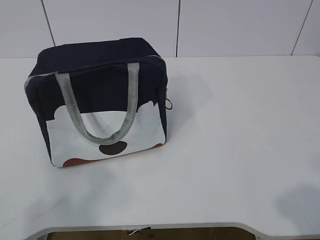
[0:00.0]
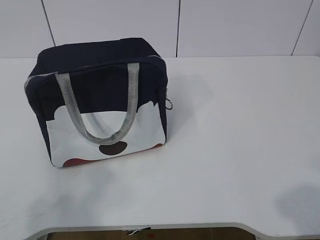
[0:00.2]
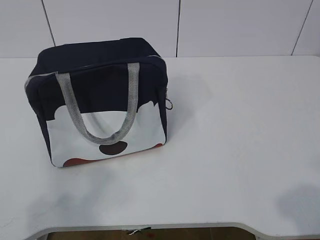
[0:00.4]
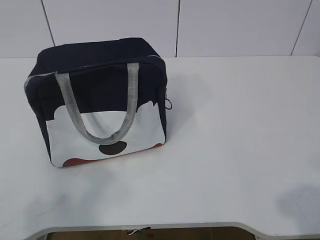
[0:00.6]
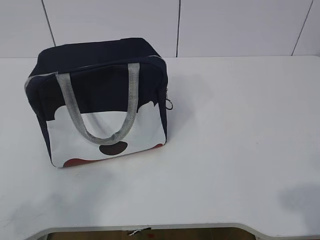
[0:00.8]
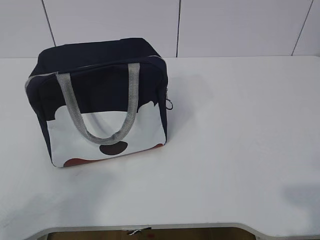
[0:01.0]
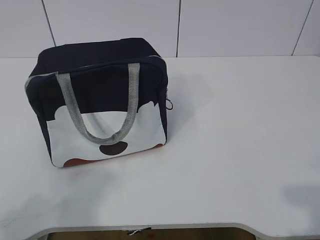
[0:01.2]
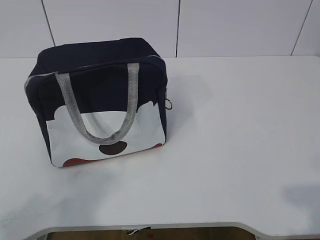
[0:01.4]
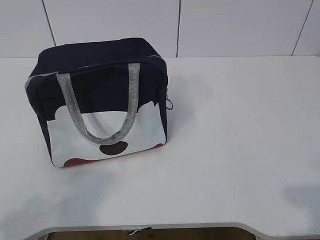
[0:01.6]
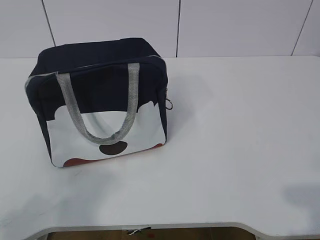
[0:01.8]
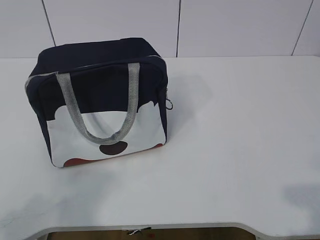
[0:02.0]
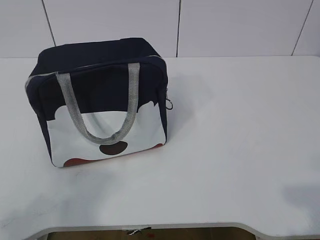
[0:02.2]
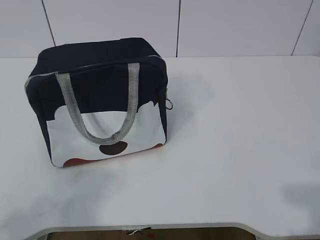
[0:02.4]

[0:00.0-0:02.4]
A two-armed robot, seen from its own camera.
1.2 to 2.4 s: Both grippers stay about where they are.

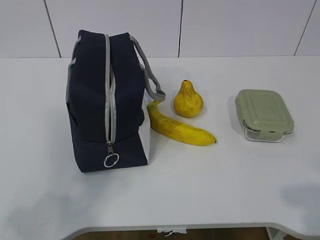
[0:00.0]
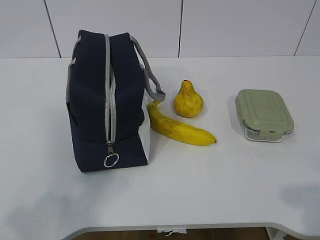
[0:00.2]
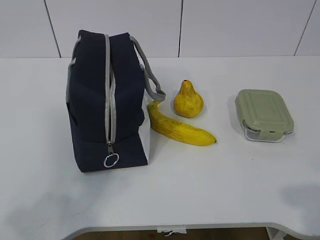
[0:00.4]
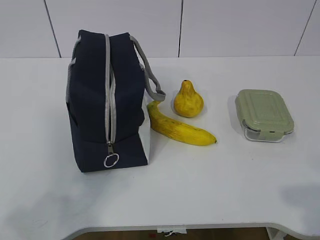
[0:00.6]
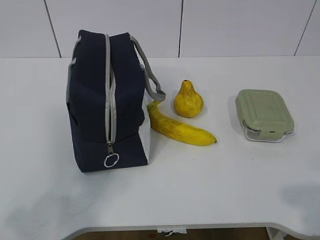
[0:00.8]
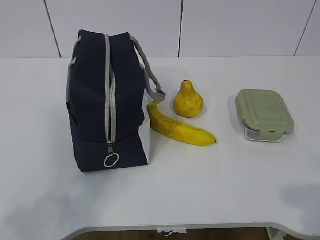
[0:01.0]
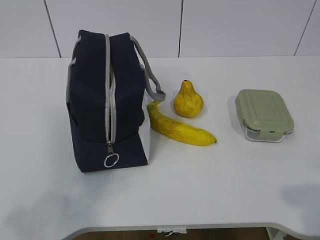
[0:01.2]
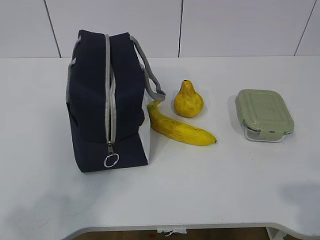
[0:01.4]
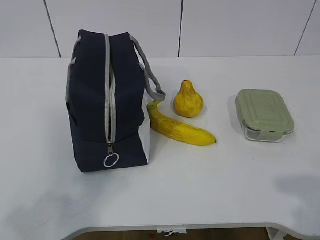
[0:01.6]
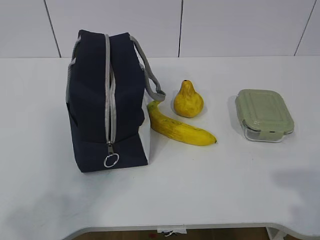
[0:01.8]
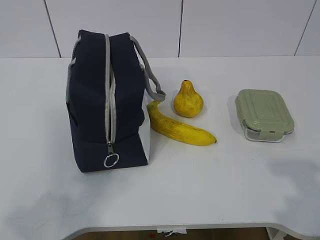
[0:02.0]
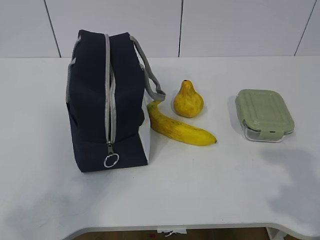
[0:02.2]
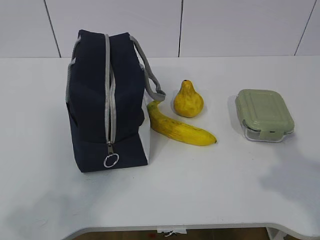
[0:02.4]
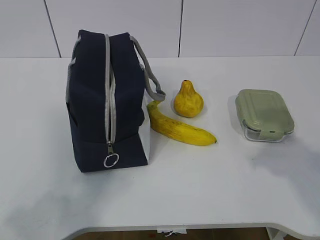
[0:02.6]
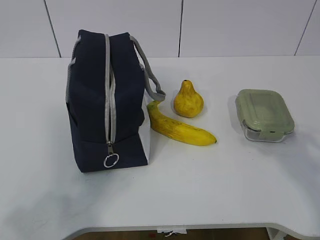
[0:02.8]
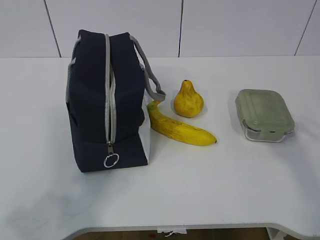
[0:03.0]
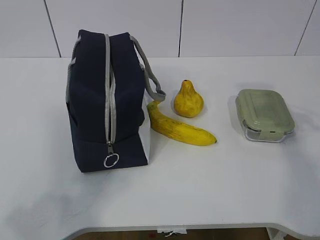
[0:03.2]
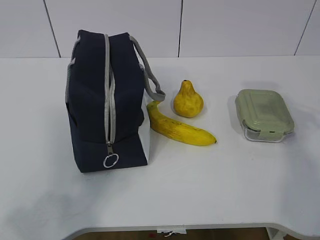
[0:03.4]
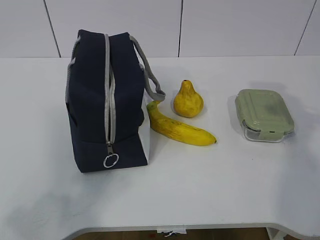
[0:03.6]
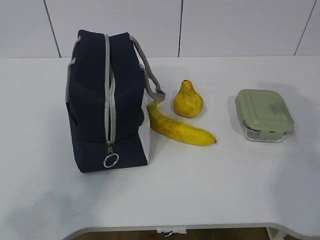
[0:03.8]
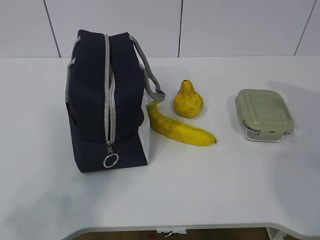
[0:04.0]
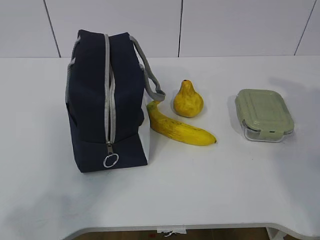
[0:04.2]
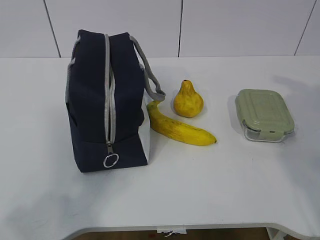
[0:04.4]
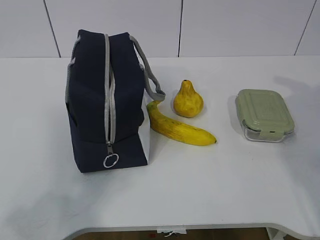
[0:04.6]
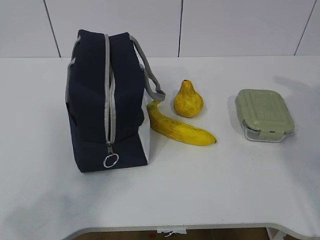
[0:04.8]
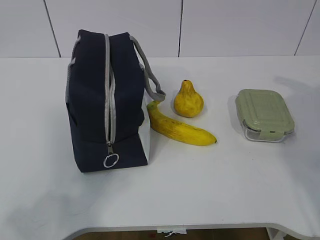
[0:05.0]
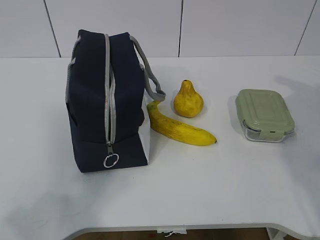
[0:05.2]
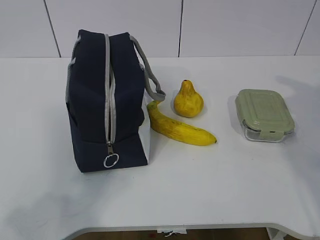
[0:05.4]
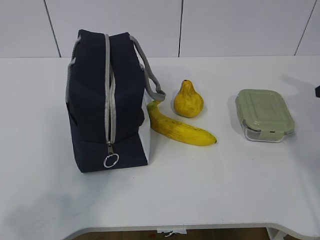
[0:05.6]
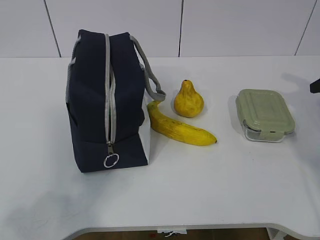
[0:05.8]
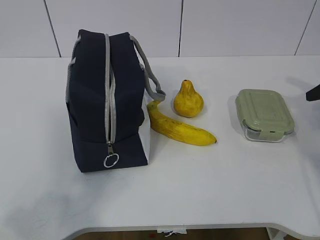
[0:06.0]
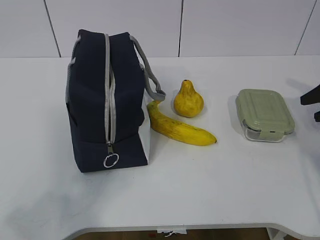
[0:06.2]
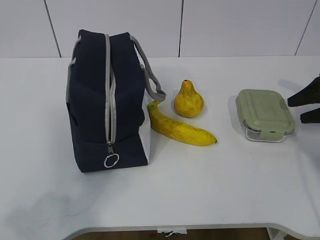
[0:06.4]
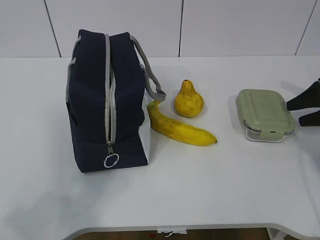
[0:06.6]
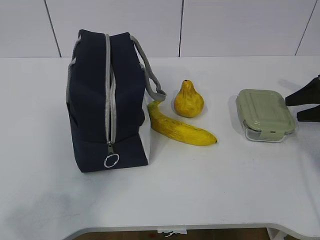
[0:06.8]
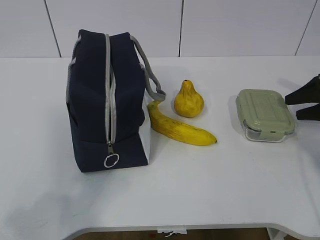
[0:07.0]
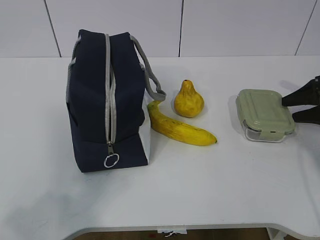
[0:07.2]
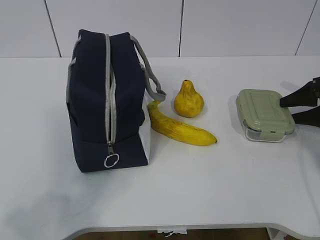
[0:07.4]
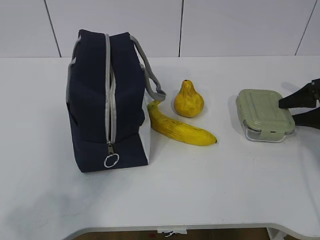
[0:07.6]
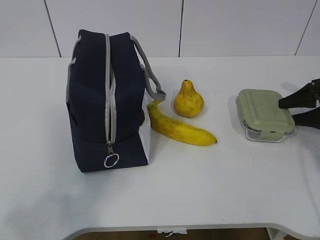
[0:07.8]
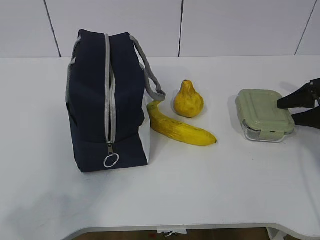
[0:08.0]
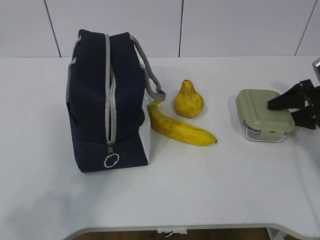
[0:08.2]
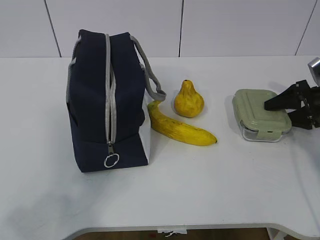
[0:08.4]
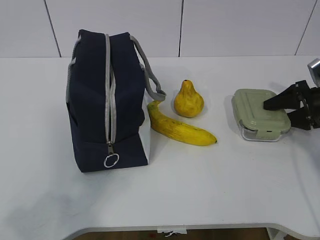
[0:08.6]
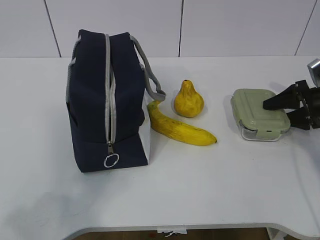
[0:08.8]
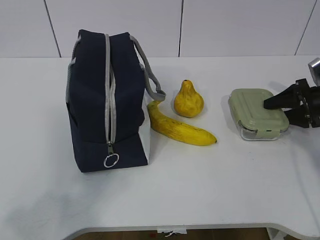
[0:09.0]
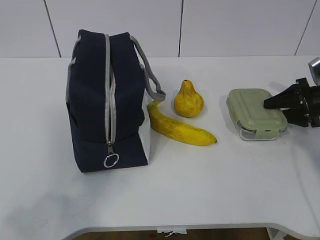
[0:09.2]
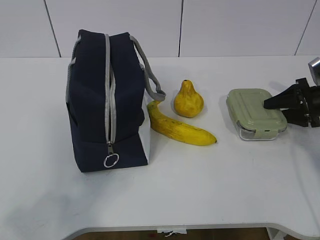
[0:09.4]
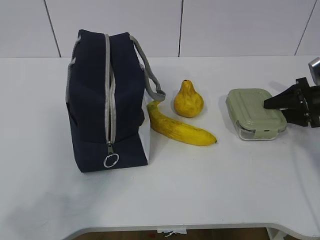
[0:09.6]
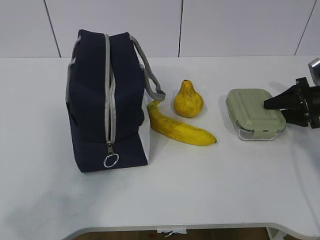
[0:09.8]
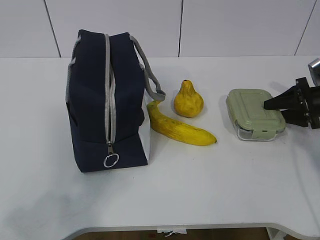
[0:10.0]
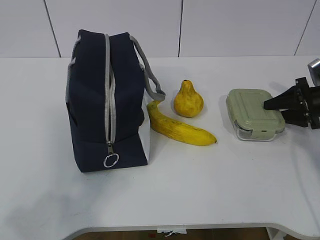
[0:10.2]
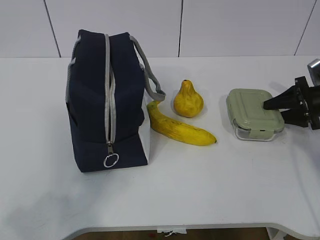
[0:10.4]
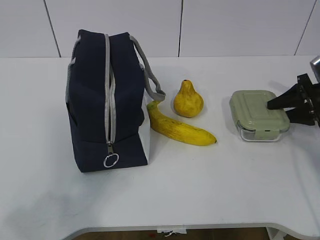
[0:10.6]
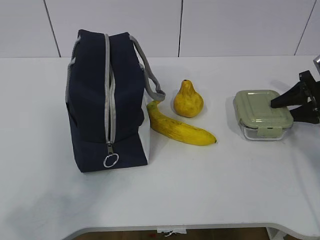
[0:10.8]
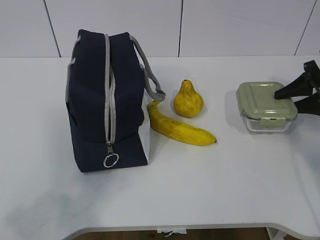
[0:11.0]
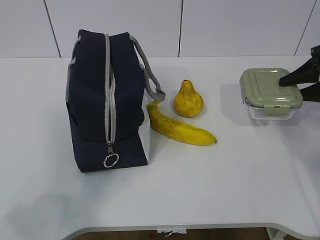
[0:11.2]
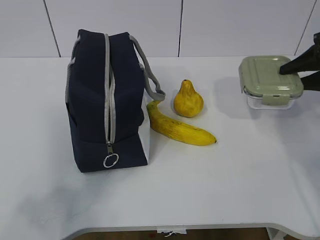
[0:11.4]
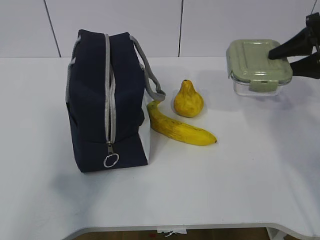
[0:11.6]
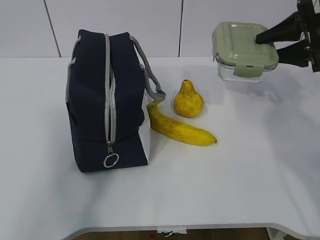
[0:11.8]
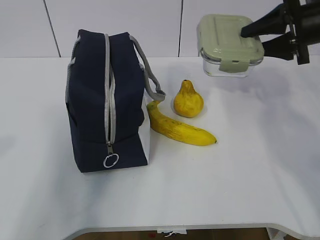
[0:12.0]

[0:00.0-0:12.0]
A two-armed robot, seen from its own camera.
Step, 0.0 to 8.8 s: Grasp the box with the right gripper.
1.6 to 3.0 s: The right gripper travels forward by some 20 cm.
6.0 to 7.6 s: The right gripper is displaced downward by roughly 5 cm.
7.6 to 10.4 s: The grippers move only a little.
10.4 to 12.0 s: The right gripper is displaced upward and to the left by approximately 20 cm; the left gripper is displaced forward and upward by roughly 10 cm.

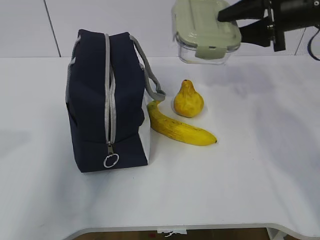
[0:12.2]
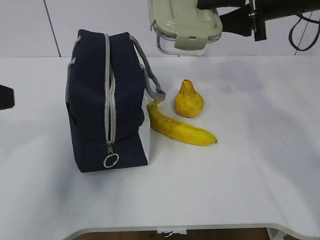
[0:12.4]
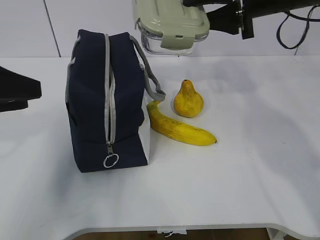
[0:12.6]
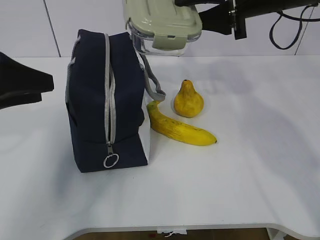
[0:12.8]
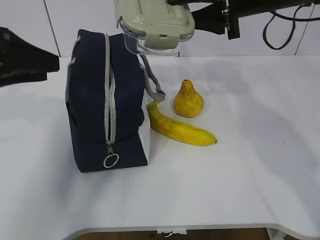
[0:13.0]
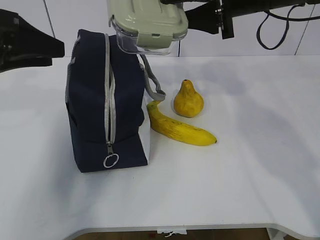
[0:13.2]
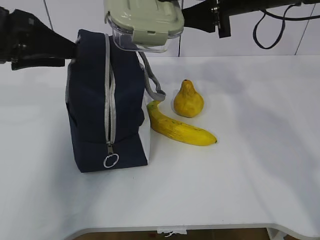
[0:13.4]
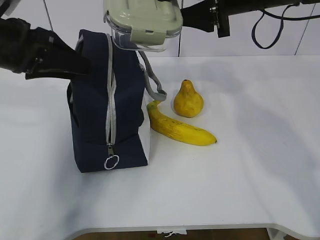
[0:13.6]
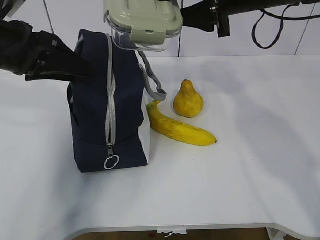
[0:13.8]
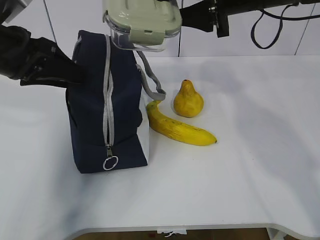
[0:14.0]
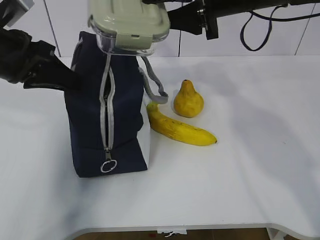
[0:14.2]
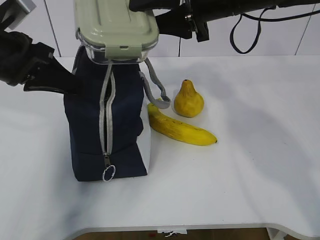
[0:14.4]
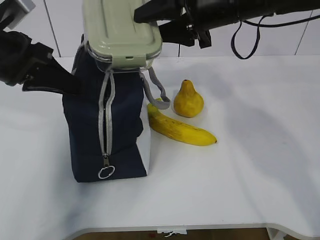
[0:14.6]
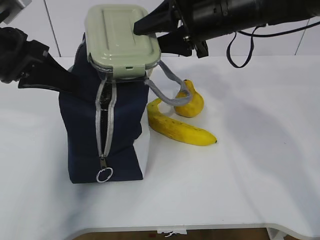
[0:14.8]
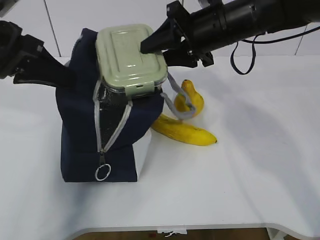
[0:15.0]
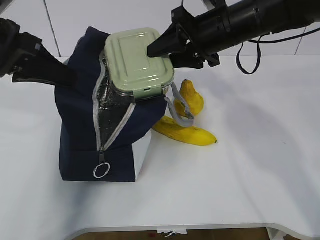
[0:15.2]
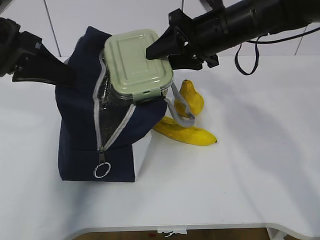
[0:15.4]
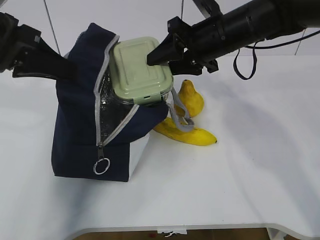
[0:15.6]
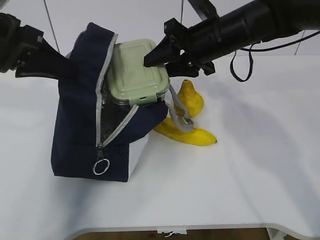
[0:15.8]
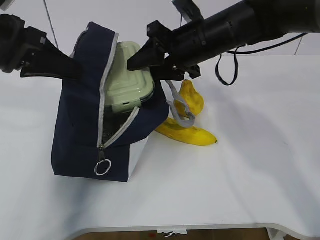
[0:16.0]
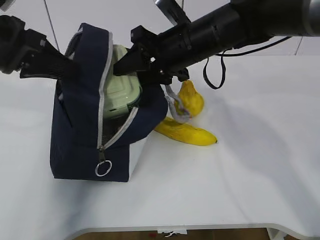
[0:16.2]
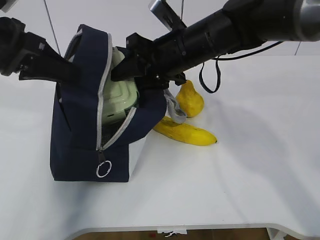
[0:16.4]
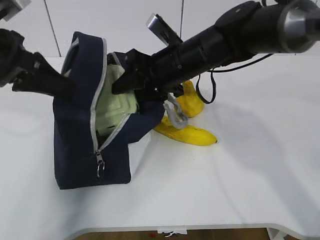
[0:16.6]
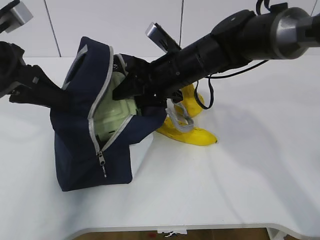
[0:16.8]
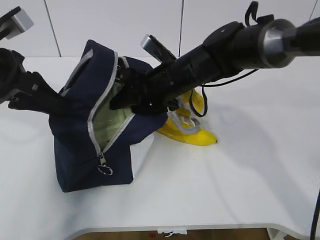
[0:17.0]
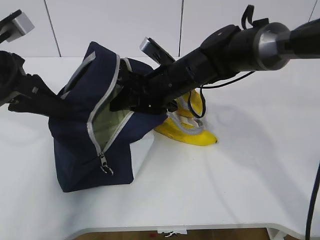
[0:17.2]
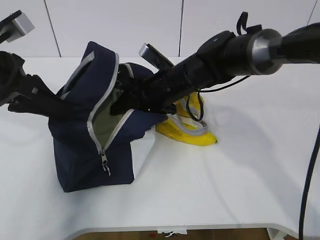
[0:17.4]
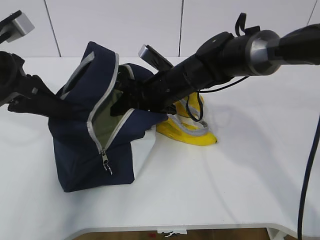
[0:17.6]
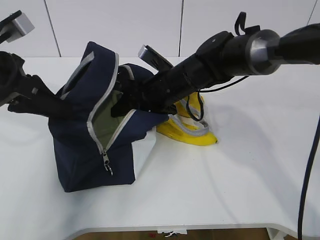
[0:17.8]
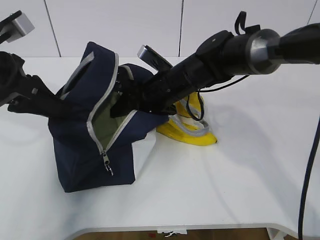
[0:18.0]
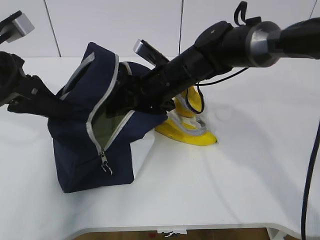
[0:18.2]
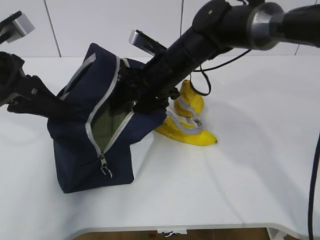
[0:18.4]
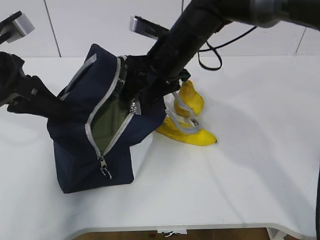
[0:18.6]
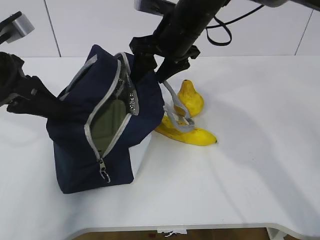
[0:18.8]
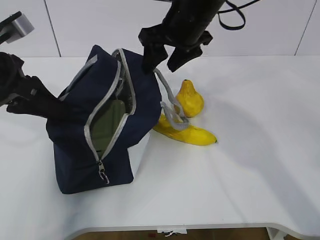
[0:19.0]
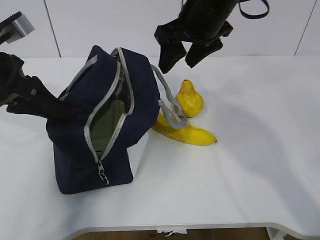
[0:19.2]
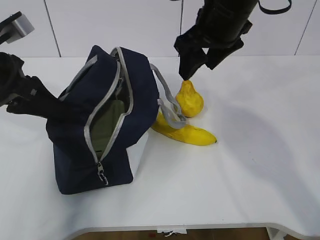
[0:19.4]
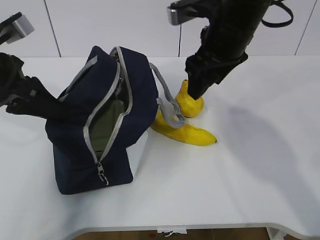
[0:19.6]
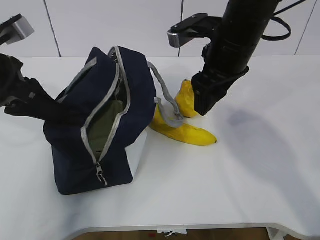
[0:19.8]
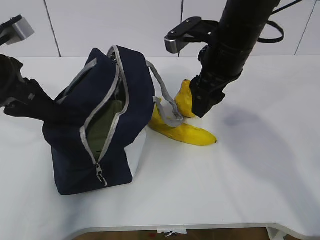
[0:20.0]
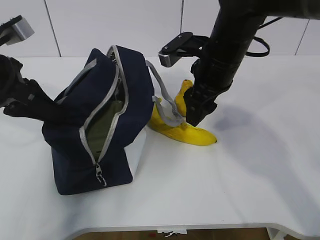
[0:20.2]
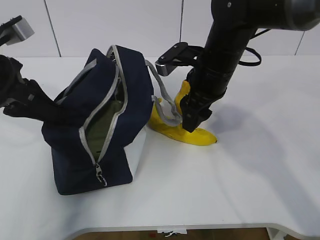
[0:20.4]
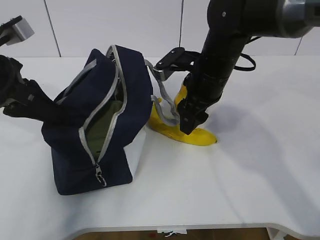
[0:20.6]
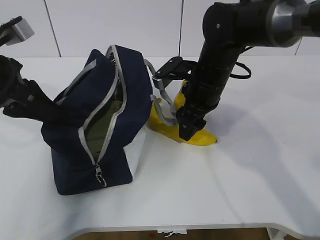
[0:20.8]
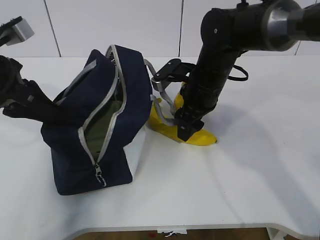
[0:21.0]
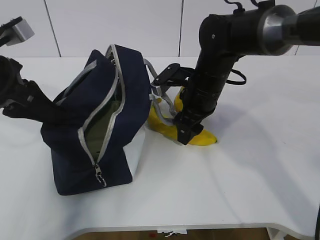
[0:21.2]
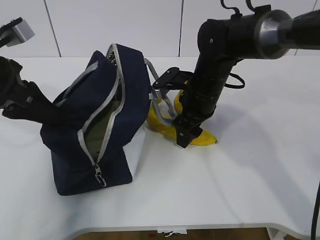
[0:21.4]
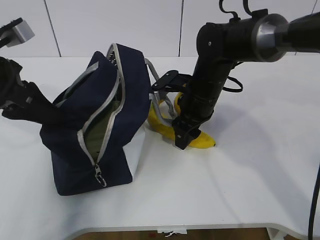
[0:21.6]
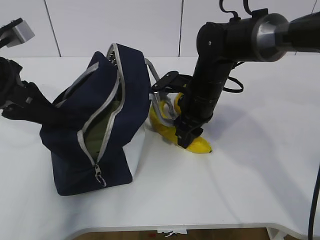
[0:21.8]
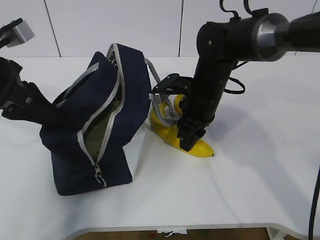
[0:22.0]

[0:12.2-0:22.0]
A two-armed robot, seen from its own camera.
Step, 12.2 to 19.0 s: Place the box into the package with the right gripper.
12.2 to 13.6 s: The right gripper moves to the left, about 10 cm; the left gripper moves forward, approximately 20 cm.
13.6 to 15.0 s: The left gripper closes. The right gripper travels downward by approximately 5 cm.
15.0 to 16.4 s: The right gripper travels to the left by approximately 5 cm.
16.4 to 17.8 s: The right gripper shifts some 10 cm downward.
17.8 to 19.2 s: The right gripper is displaced upward by approximately 15 cm.
19.2 to 20.6 s: The right gripper is displaced downward by roughly 10 cm.
20.6 to 22.0 s: The right gripper ends up some 5 cm from where it was, and closes up.
